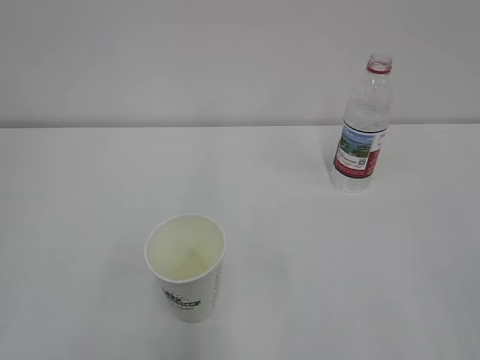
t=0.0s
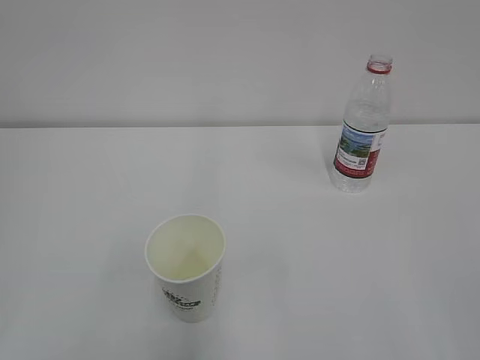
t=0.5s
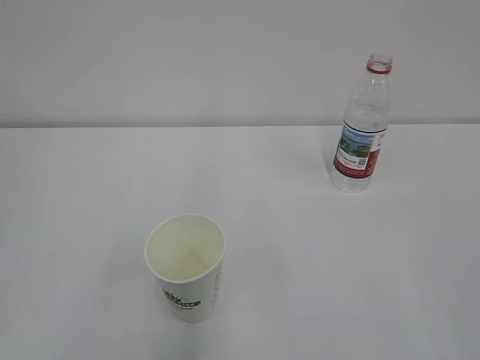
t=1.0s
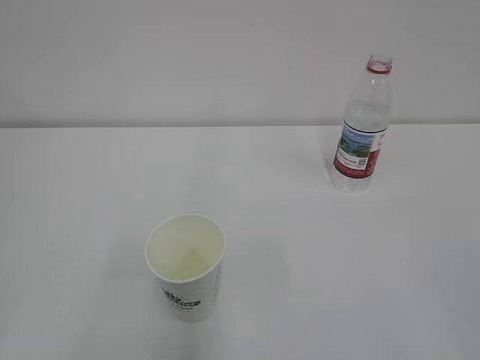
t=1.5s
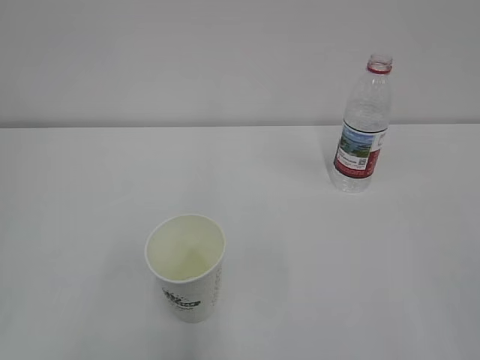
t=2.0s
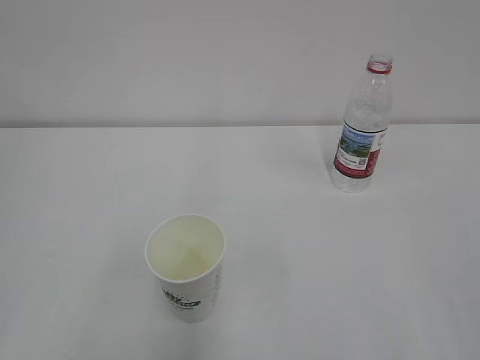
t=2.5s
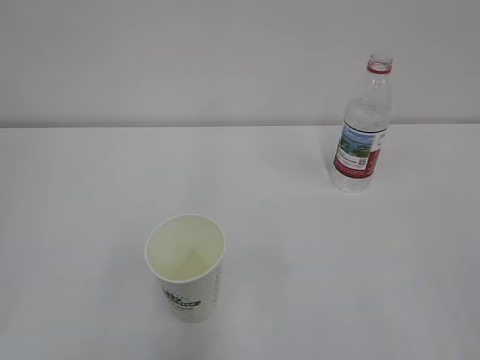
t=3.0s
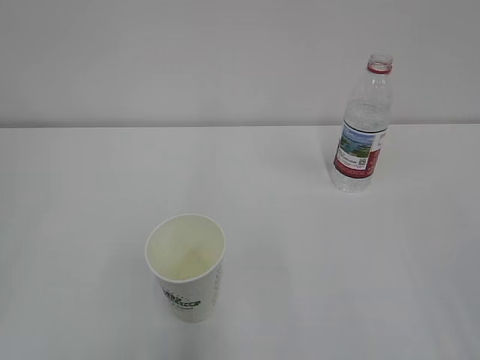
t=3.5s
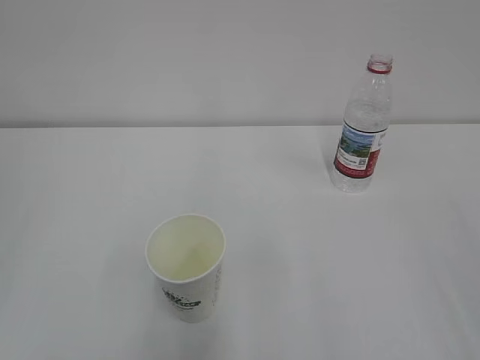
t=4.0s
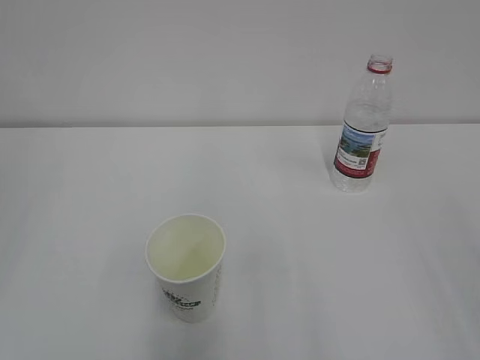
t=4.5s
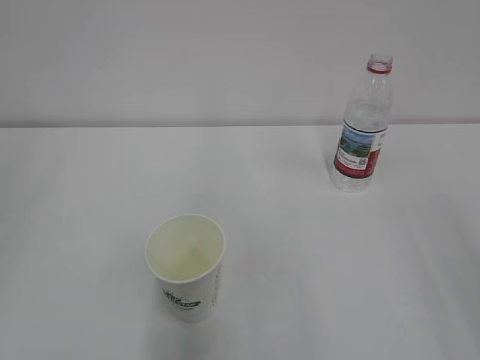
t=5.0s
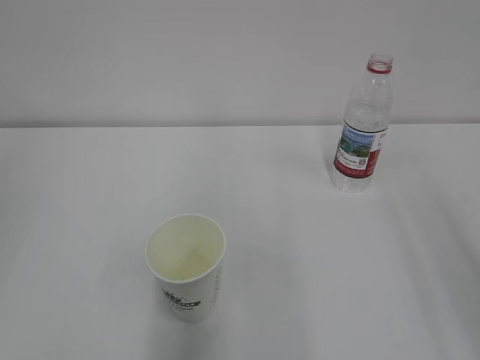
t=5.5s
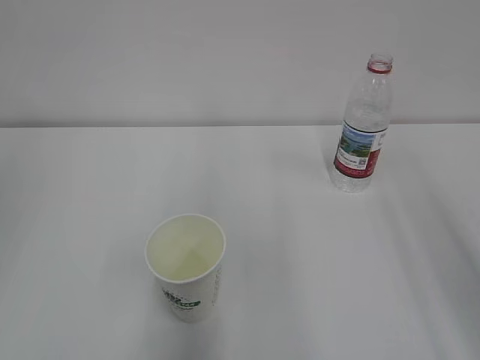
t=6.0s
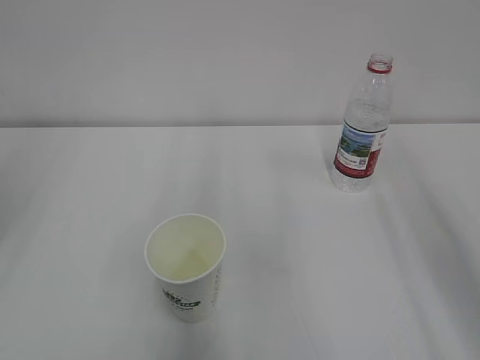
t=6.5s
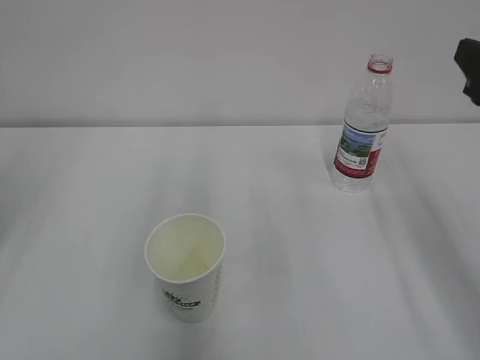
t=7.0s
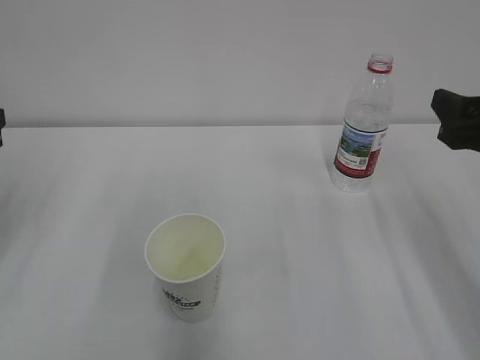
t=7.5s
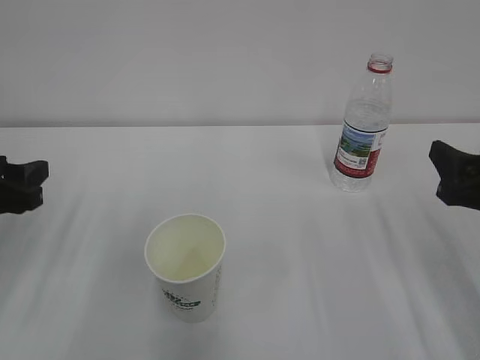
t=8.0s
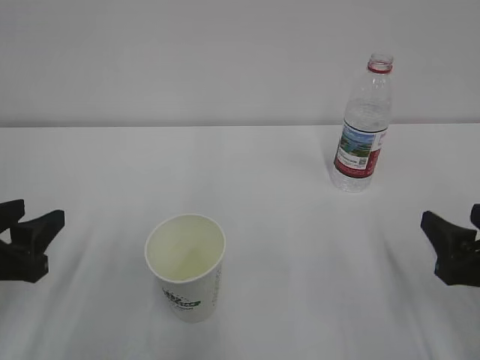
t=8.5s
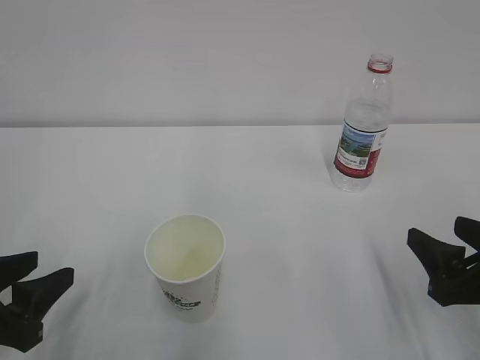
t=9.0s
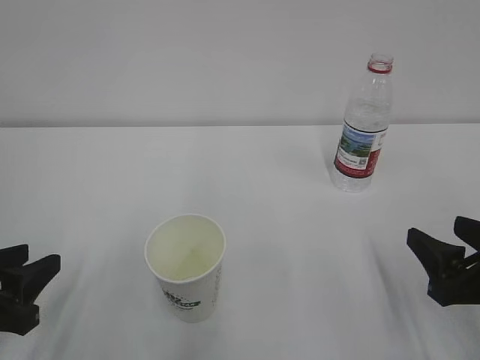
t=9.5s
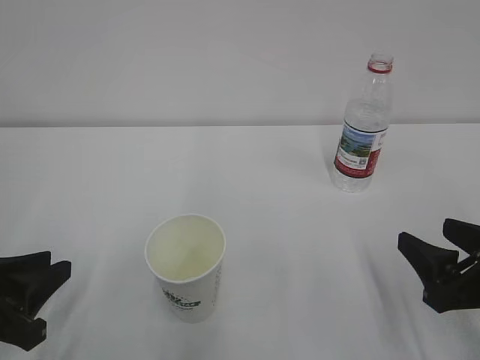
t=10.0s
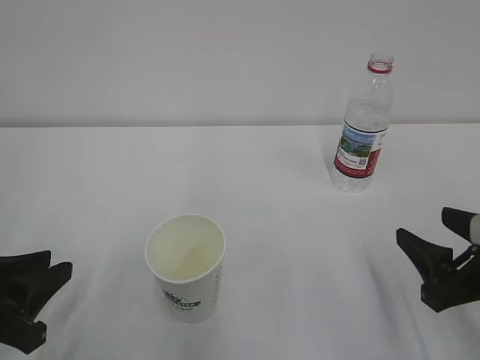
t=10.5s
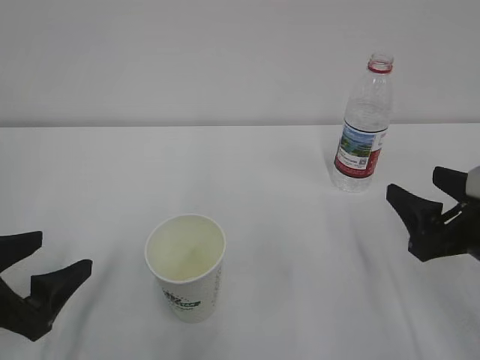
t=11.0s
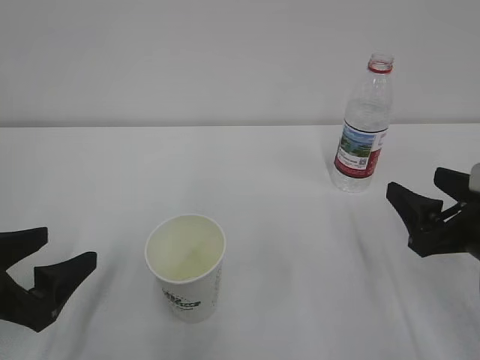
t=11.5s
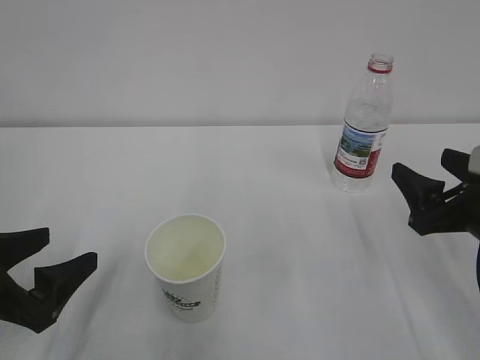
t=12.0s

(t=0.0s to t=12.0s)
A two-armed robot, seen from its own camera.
t=6.0s - t=8.0s: The two grippers go roughly 20 cm downward and forward. The left gripper closes.
t=8.0s - t=10.0s: The left gripper shifts about 10 cm backward and downward, while the right gripper shifts approximately 10 cm downward and backward.
t=10.0s - t=12.0s: The left gripper opens; the right gripper is displaced forward by roughly 5 cm, and opens up.

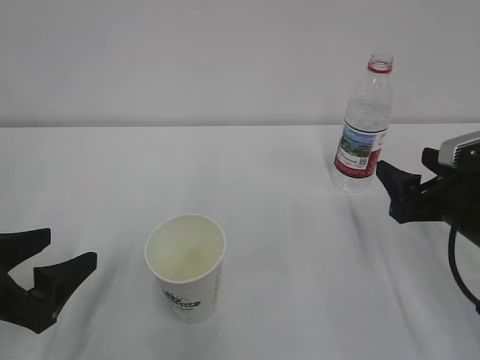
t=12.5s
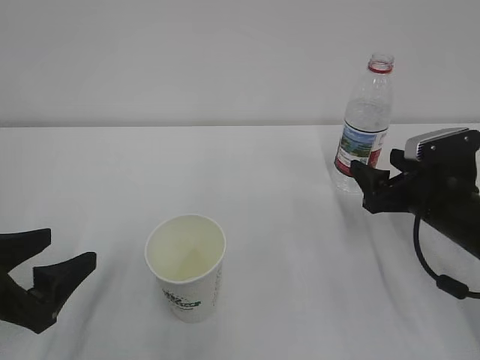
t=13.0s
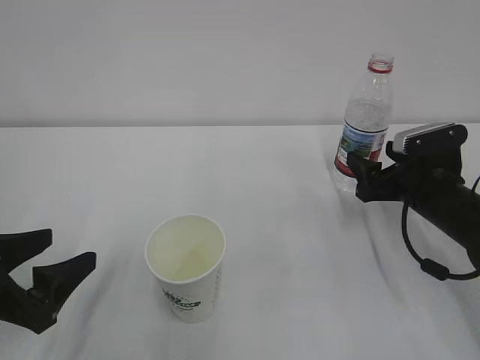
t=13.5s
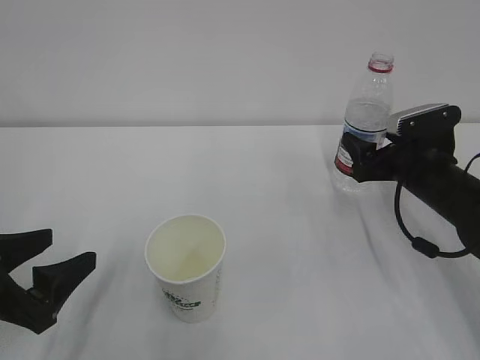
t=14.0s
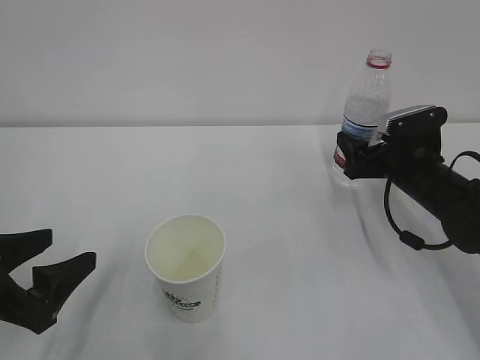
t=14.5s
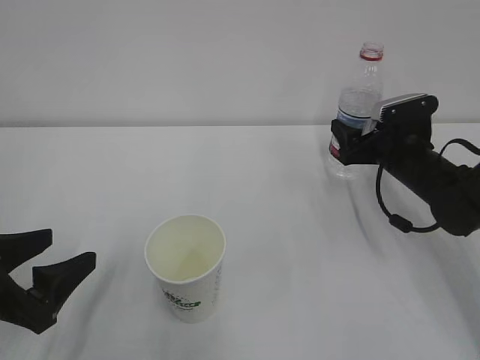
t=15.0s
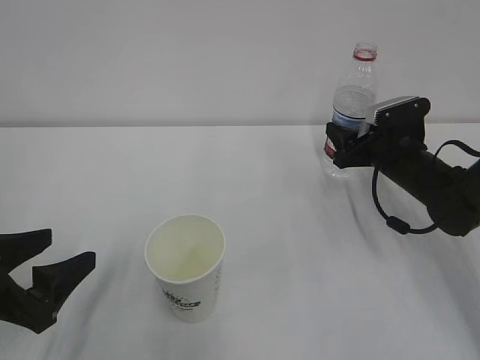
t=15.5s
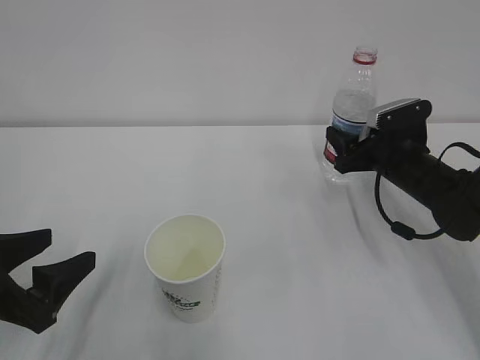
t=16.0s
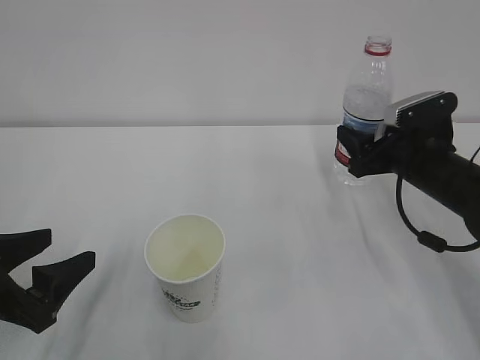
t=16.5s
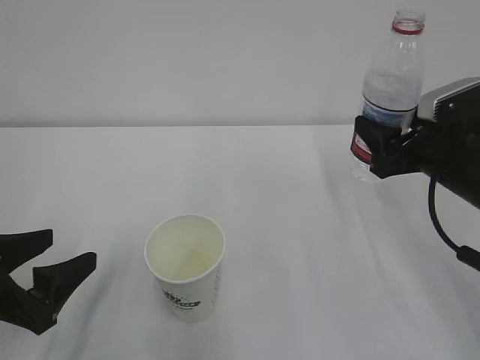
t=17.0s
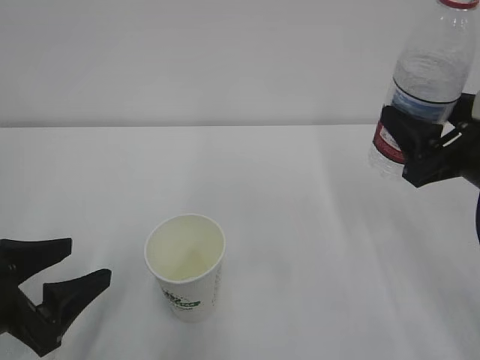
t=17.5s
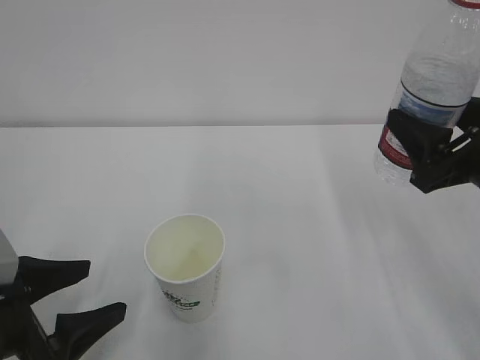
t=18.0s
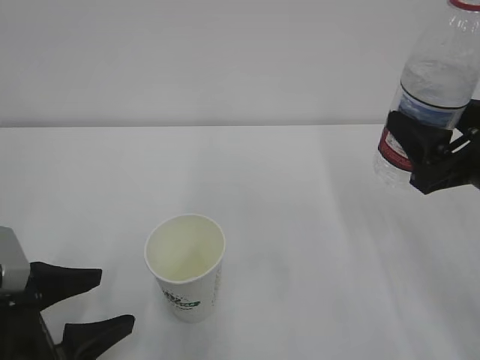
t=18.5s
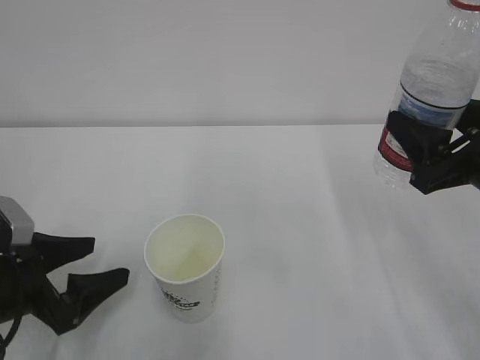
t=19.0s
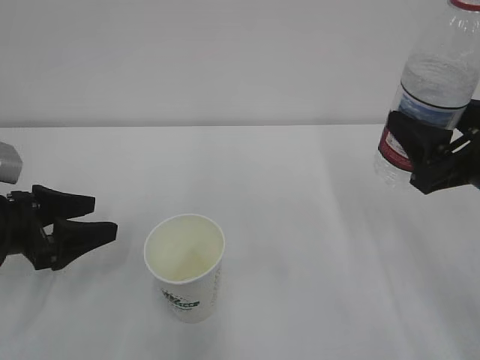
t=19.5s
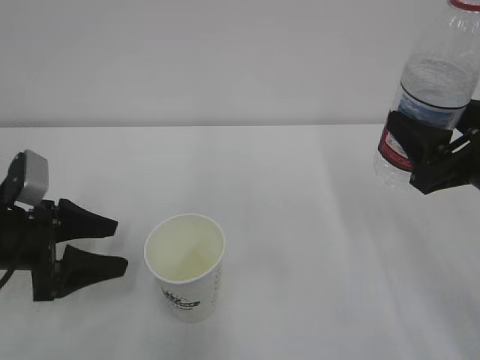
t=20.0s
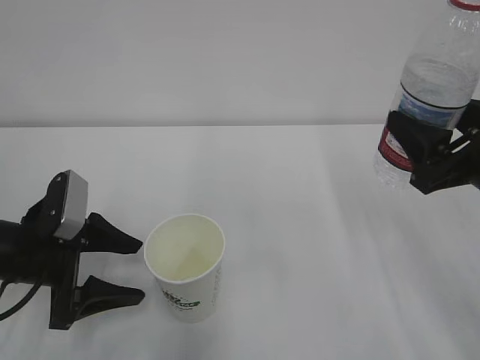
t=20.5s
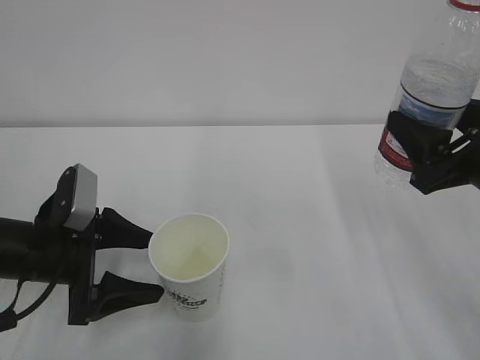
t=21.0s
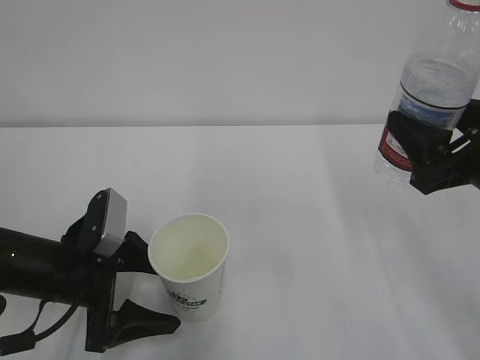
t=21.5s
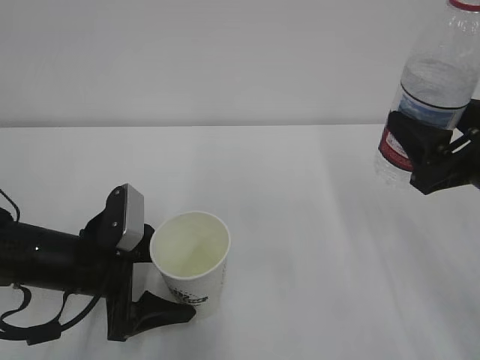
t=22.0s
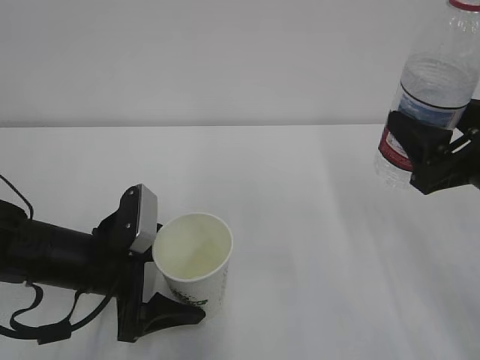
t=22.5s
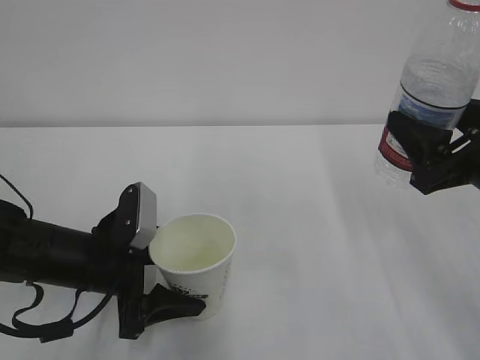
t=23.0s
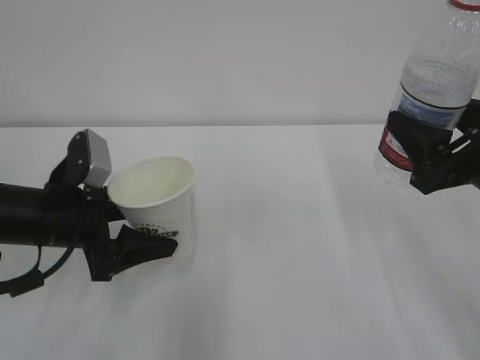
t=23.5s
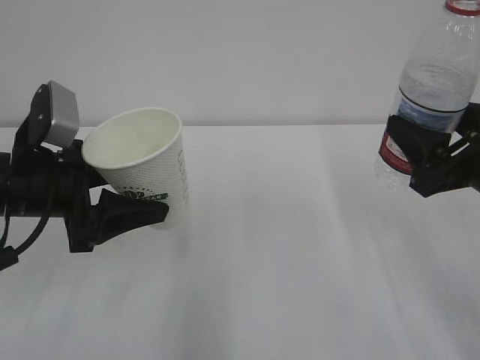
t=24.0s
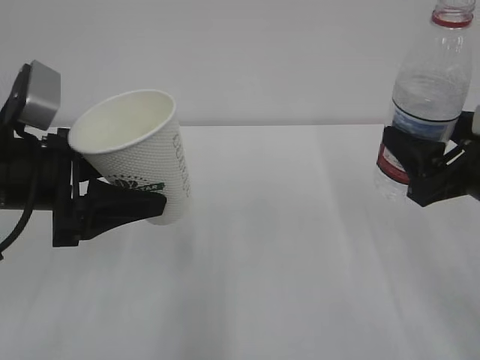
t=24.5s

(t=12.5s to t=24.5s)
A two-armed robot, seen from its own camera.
t=12.5s - t=14.5s: The right gripper is displaced forward by some 10 cm.
t=14.5s - t=16.5s: The right gripper closes up.
t=16.5s - t=18.5s: The left gripper opens its fingers. Meanwhile the right gripper travels backward and upward by roughly 15 cm.
t=18.5s - t=20.5s: The left gripper goes some 10 cm forward.
t=20.5s - t=22.5s: The left gripper goes roughly 5 cm to the right, and opens its fingers.
t=22.5s - t=24.5s: The left gripper heads upward, covering some 15 cm, and closes up.

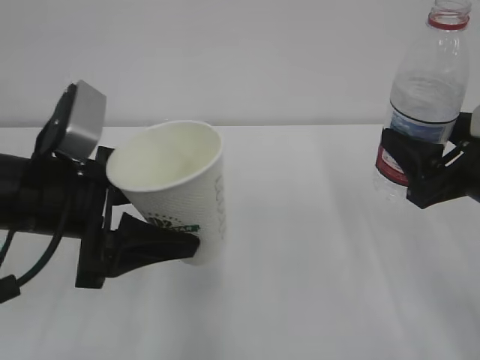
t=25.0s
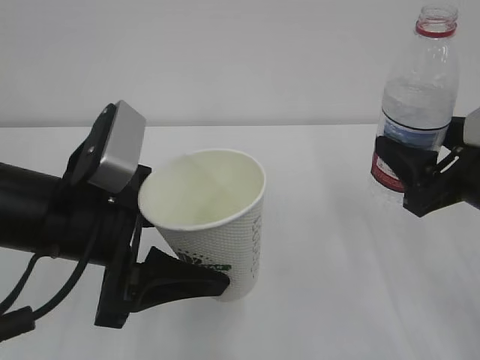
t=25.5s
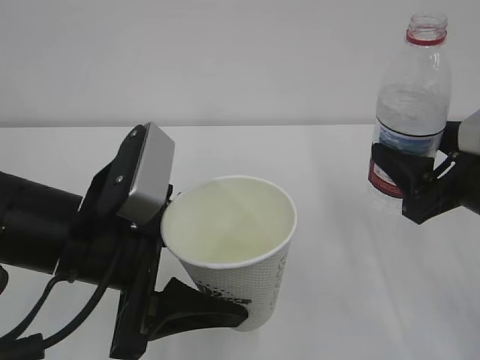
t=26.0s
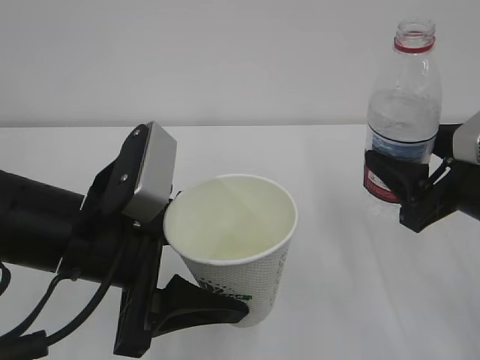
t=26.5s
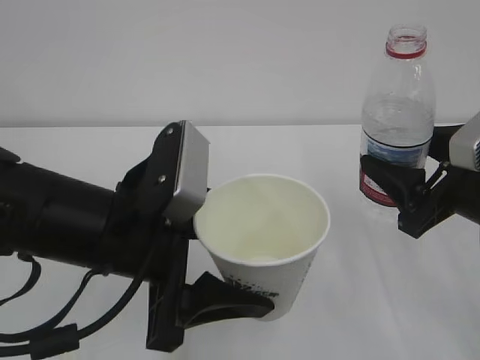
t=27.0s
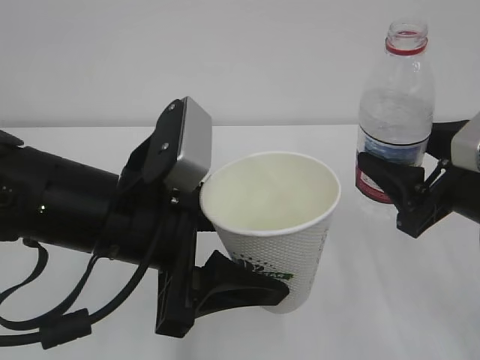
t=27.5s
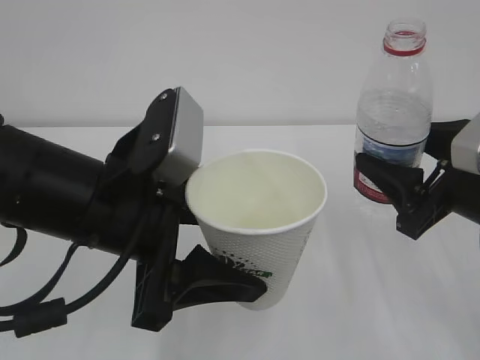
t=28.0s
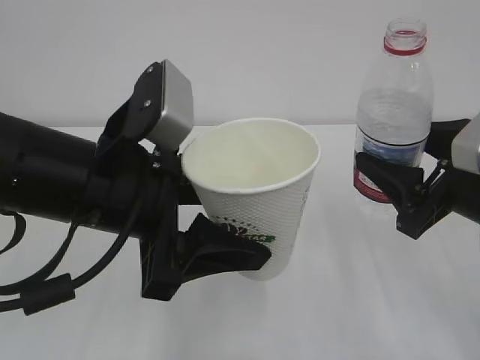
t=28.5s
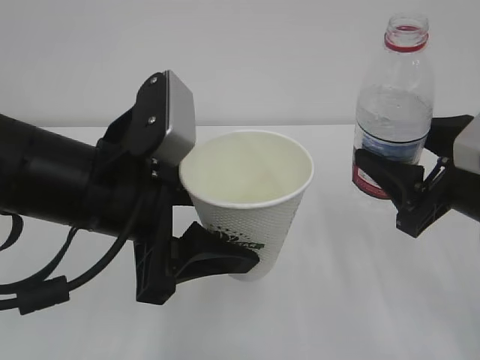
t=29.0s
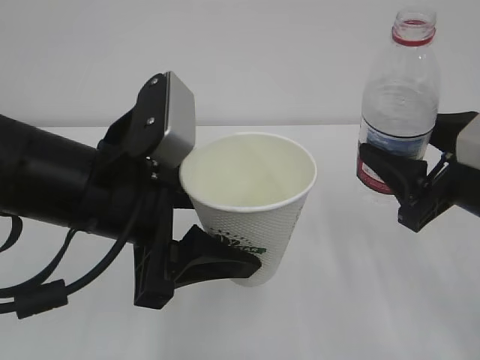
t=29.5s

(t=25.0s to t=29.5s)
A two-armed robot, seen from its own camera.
t=25.0s - t=27.0s: The left gripper shifts approximately 5 cm to the right.
